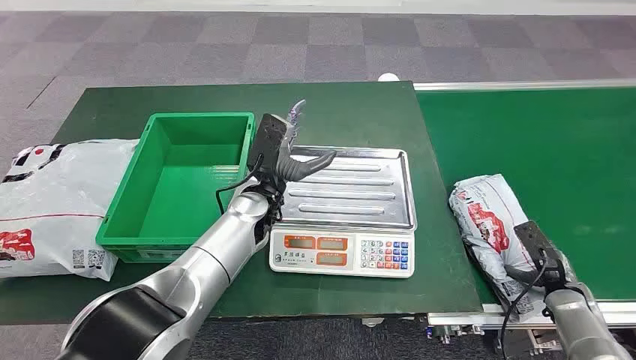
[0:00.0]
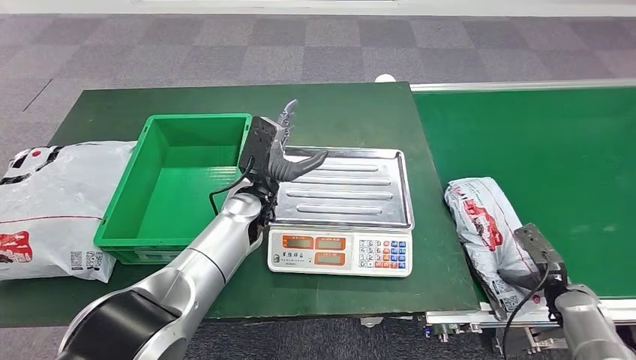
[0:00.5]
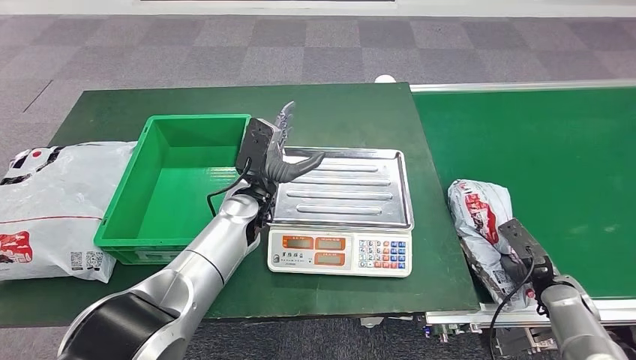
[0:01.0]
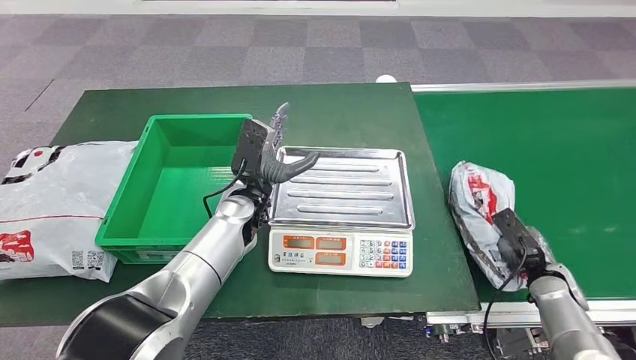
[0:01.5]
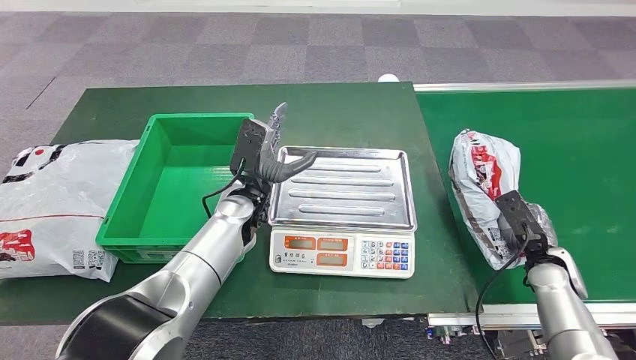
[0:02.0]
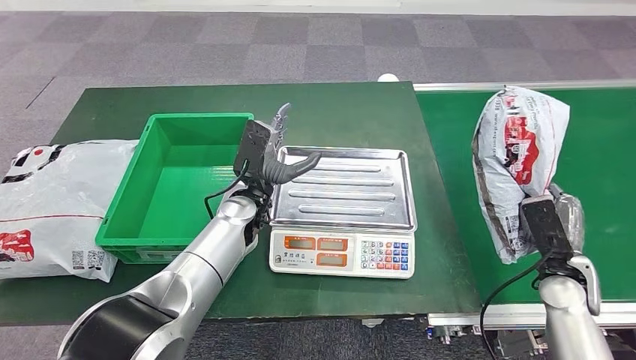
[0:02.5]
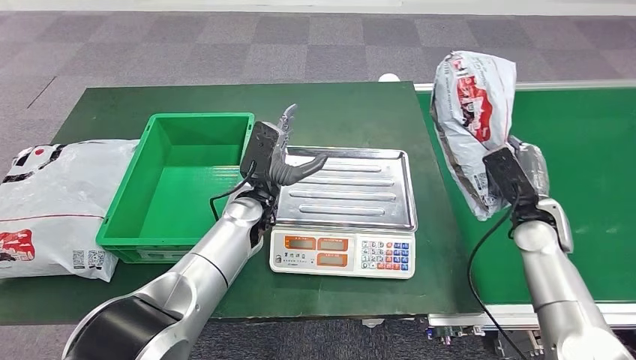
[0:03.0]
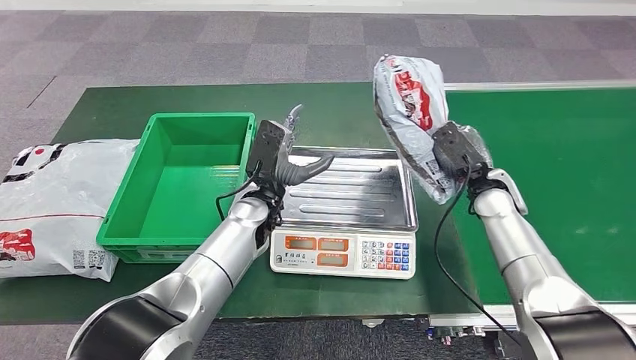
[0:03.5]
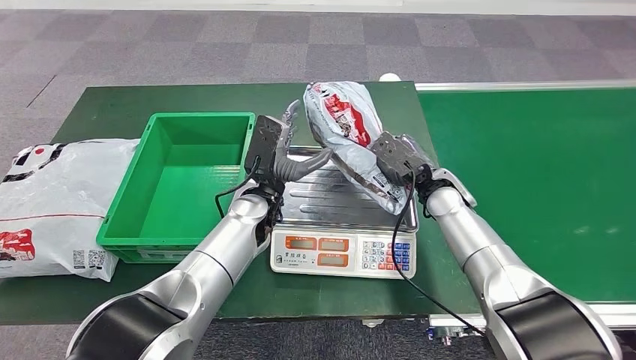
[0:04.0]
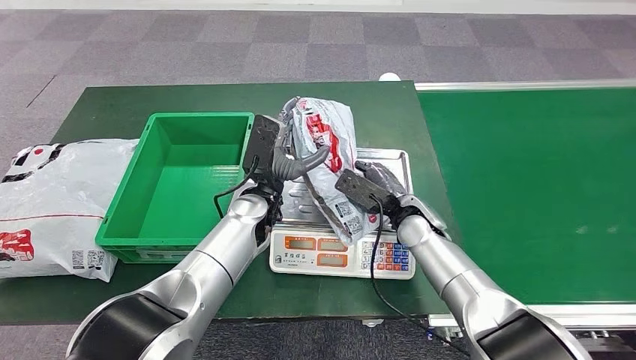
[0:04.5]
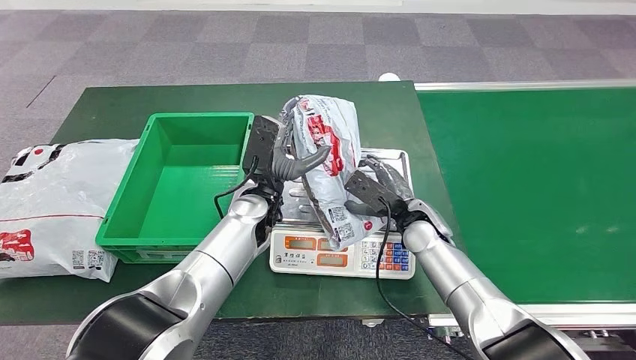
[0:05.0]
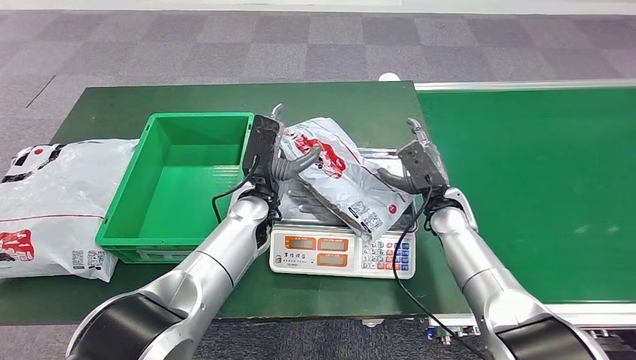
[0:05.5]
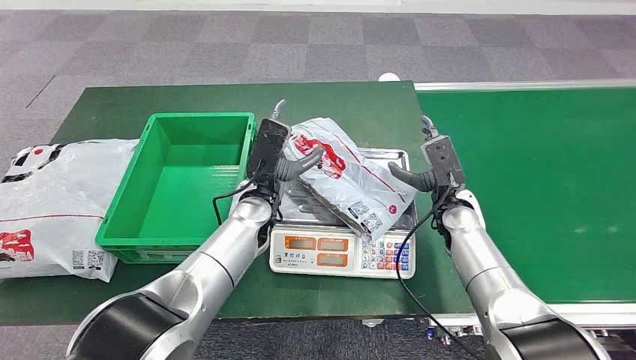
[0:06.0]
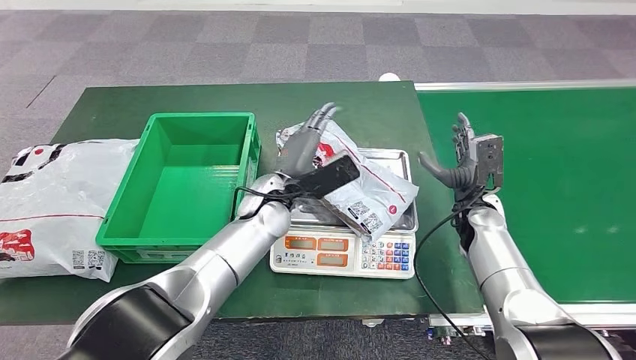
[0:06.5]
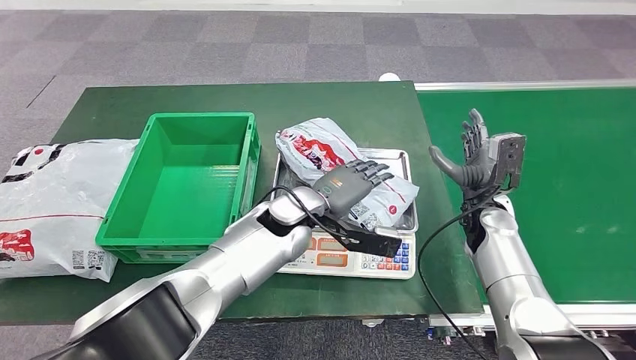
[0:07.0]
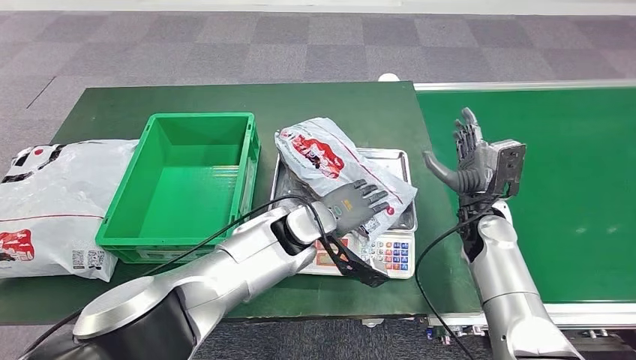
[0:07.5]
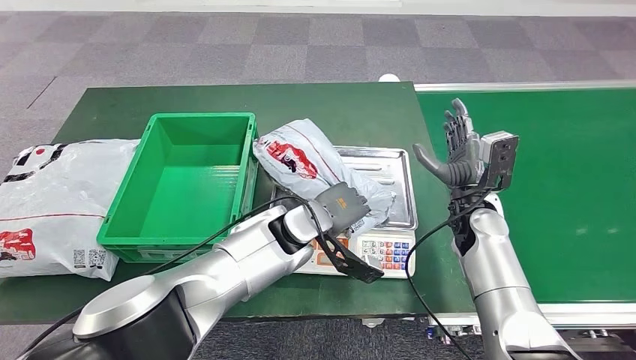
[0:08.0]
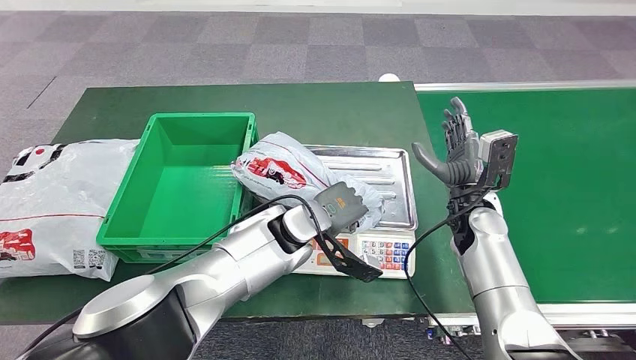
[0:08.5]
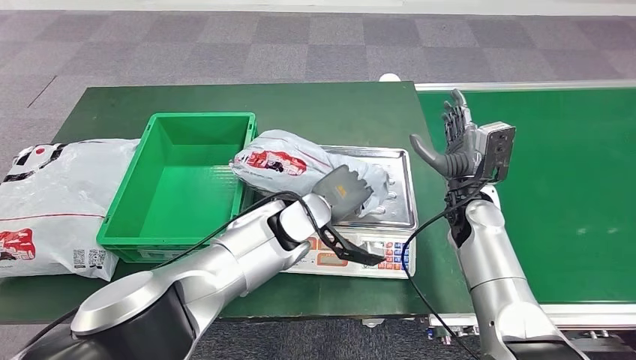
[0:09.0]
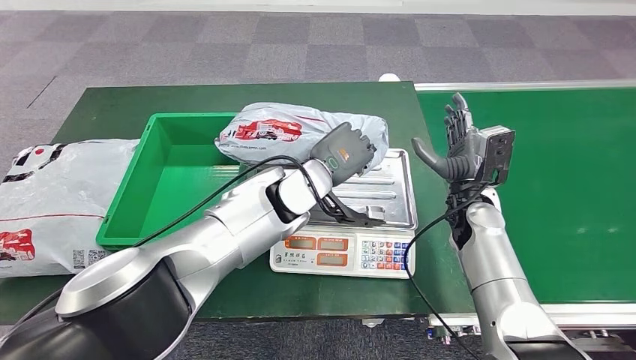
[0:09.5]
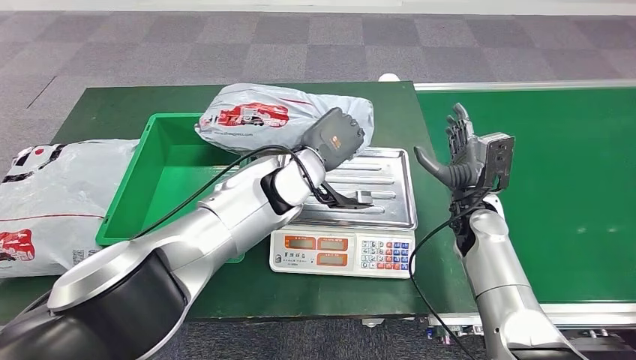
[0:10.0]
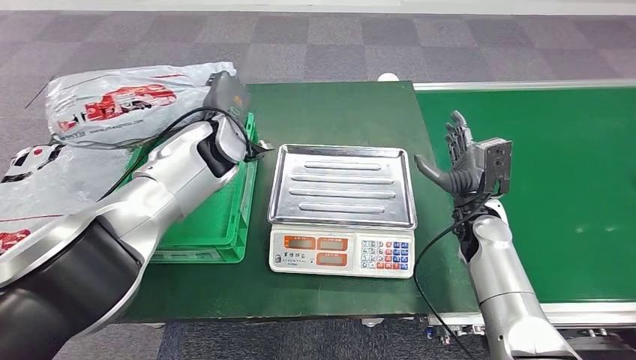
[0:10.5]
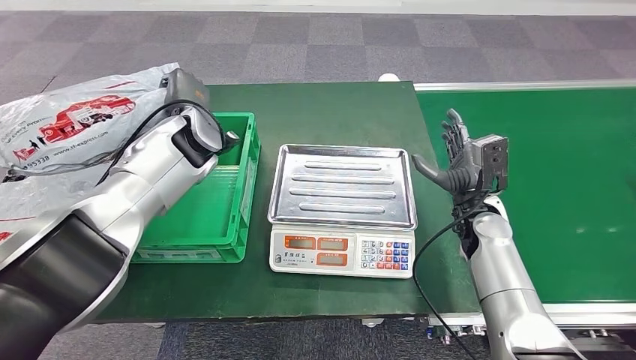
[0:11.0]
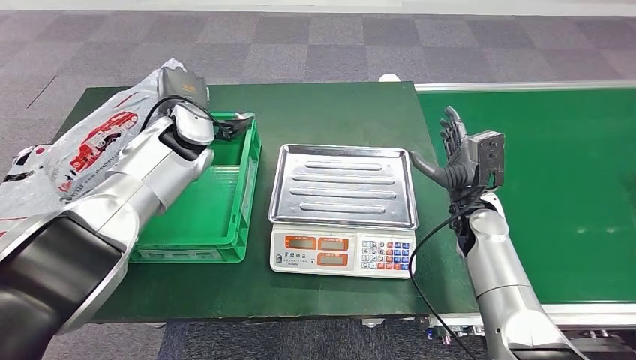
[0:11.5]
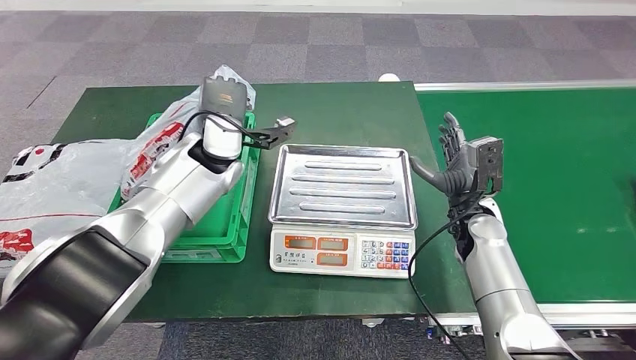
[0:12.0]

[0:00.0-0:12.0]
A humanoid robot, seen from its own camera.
Step, 0:00.0 to 0:02.5: Take the parcel off the conveyor belt.
Step, 0:03.0 to 0:05.5: Place the parcel onto the inbound machine.
Step, 0:08.0 to 0:09.5: Pick up the parcel from the inbound machine.
0:04.0 to 0:06.0: The right hand moves roughly 5 cm to the left and comes back.

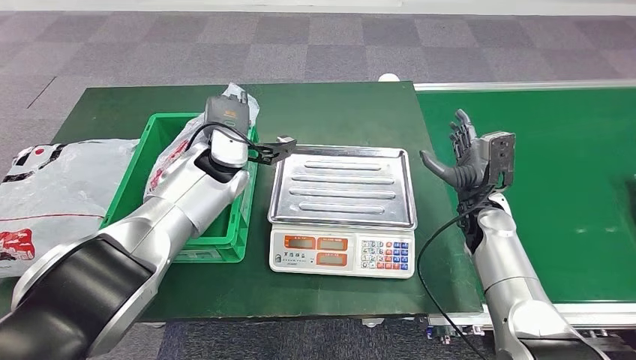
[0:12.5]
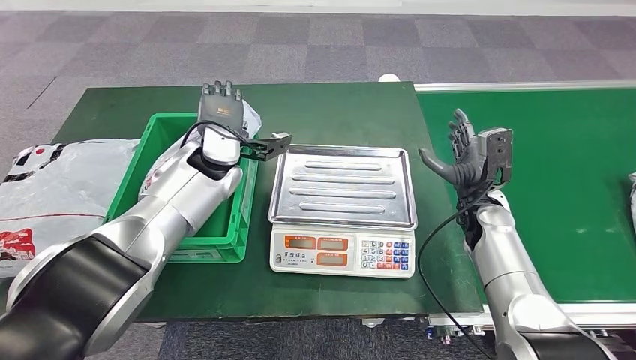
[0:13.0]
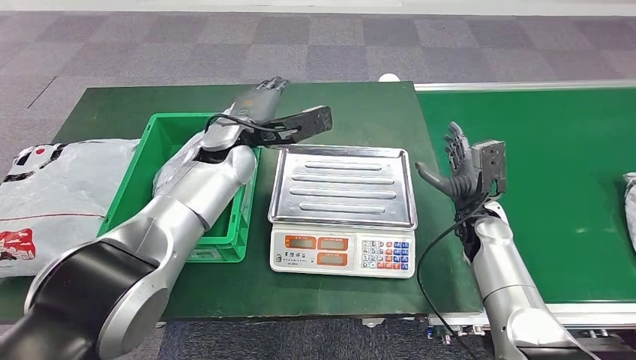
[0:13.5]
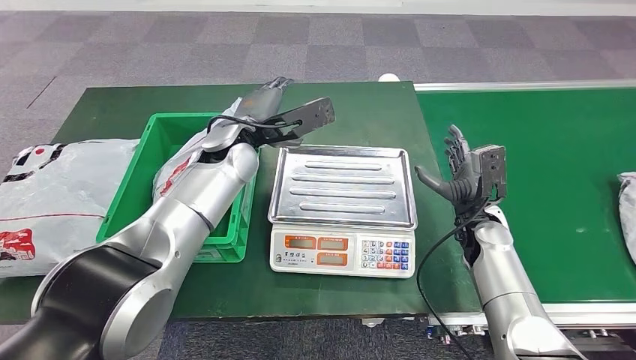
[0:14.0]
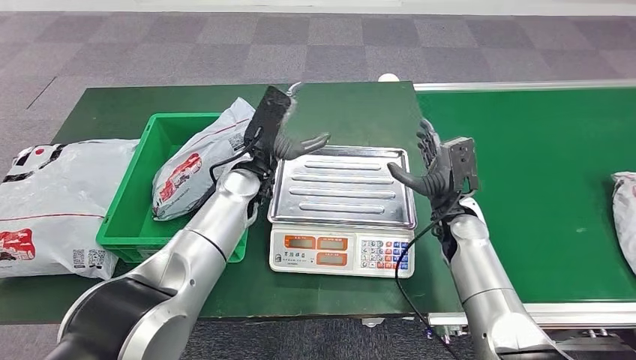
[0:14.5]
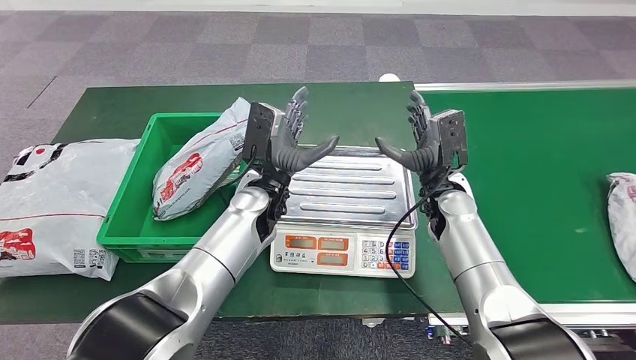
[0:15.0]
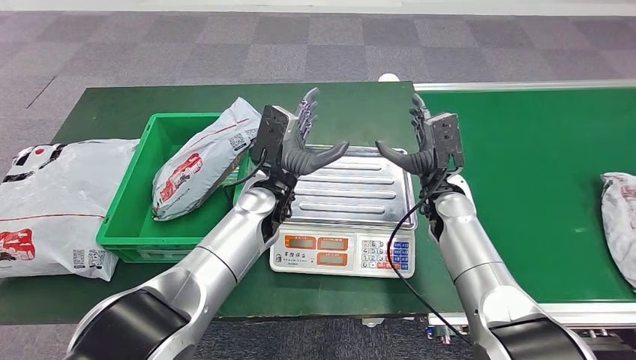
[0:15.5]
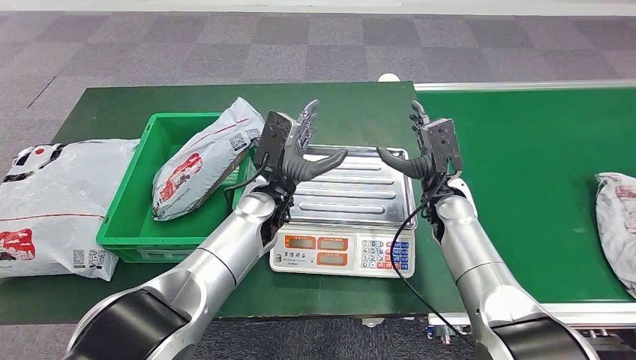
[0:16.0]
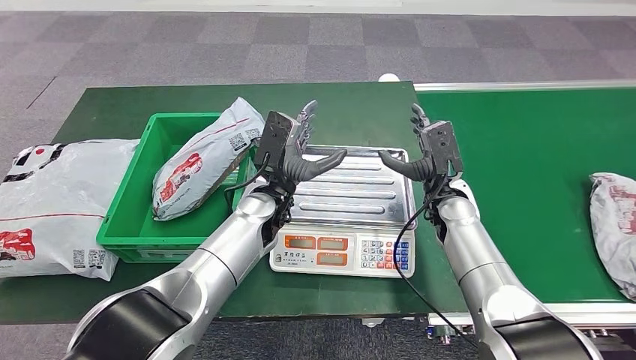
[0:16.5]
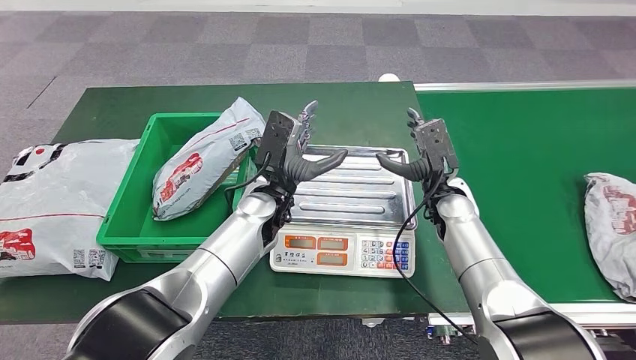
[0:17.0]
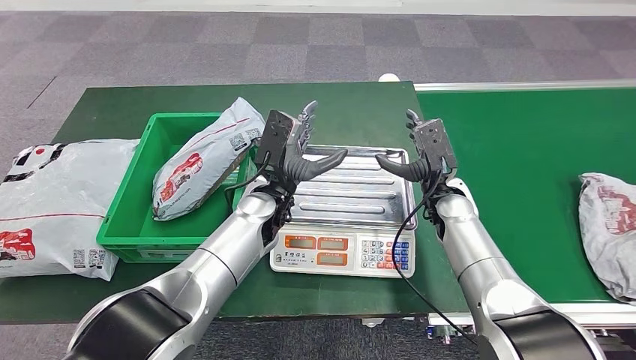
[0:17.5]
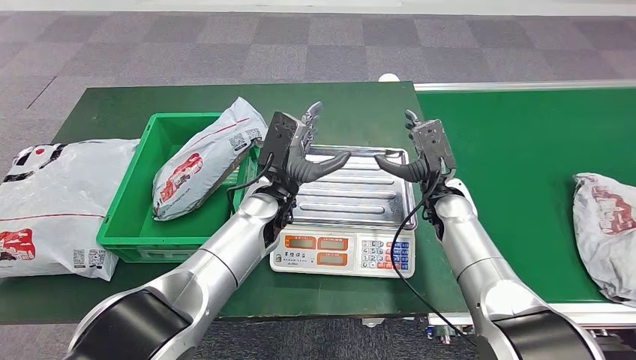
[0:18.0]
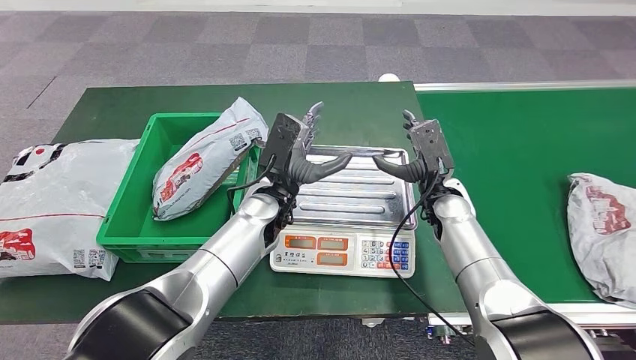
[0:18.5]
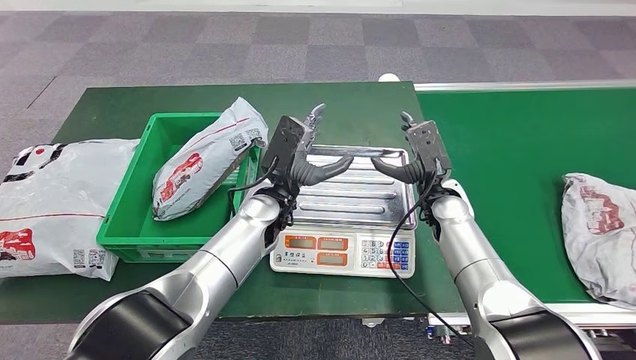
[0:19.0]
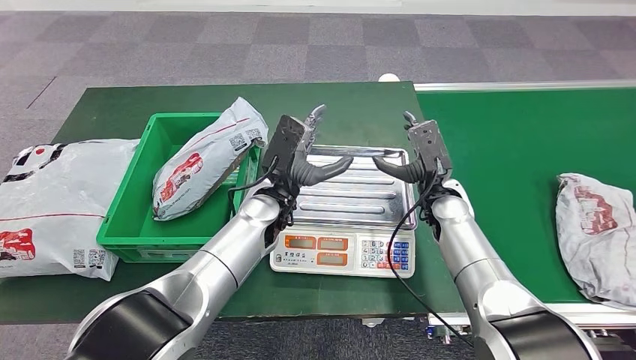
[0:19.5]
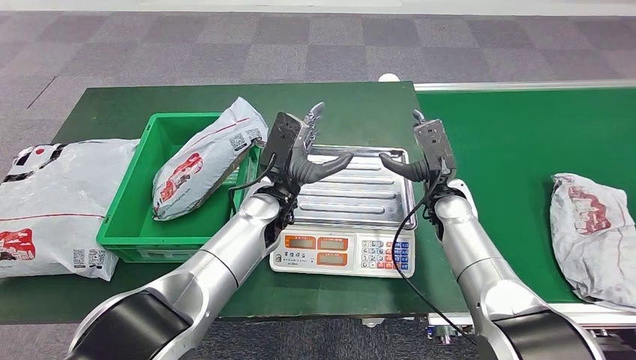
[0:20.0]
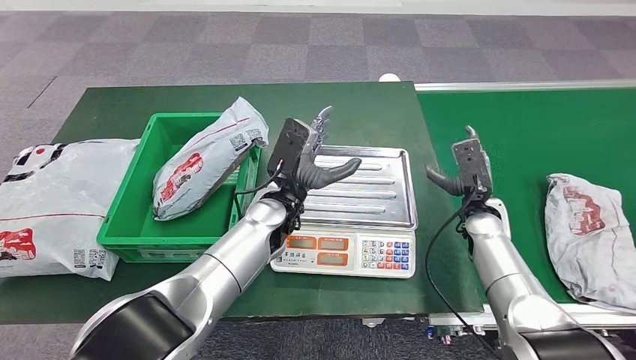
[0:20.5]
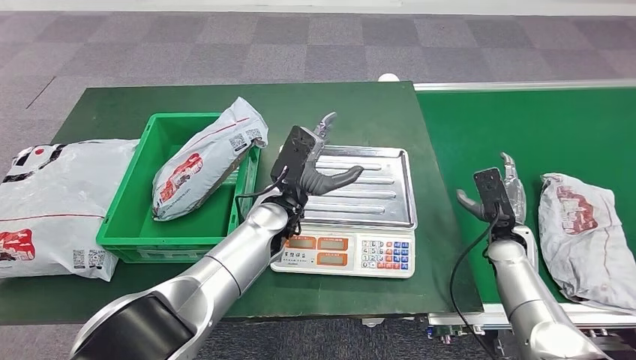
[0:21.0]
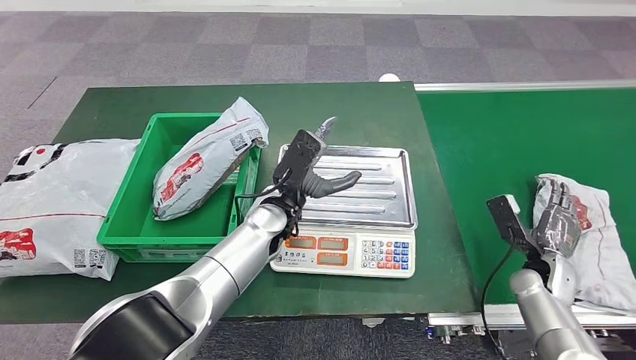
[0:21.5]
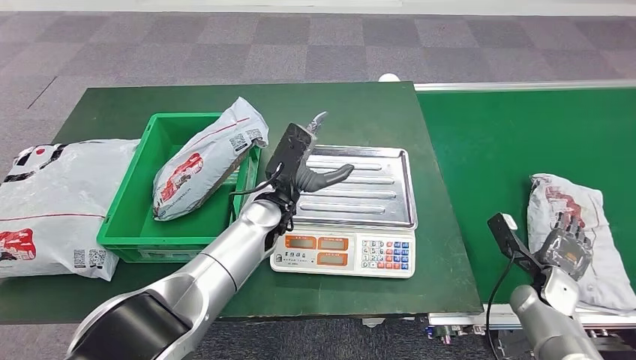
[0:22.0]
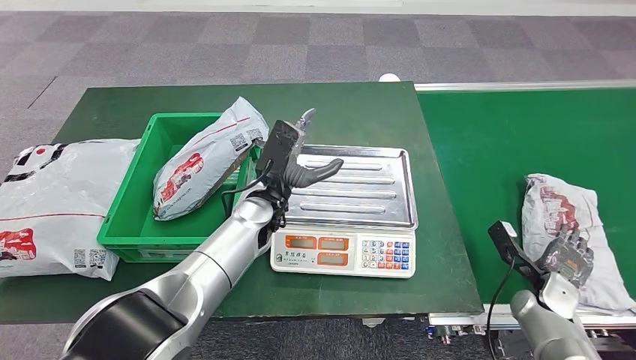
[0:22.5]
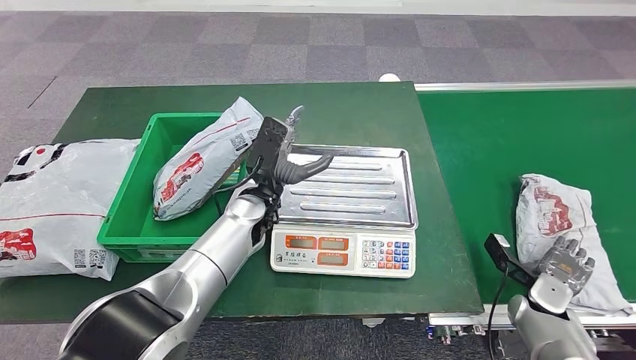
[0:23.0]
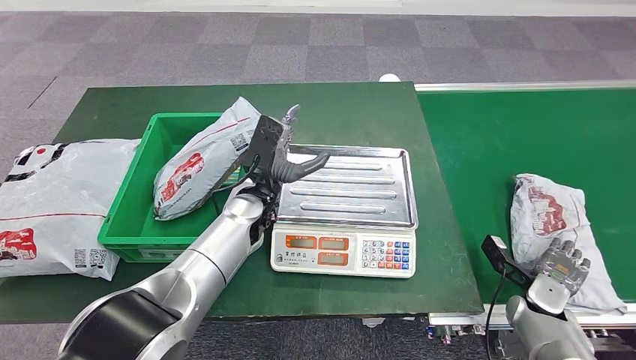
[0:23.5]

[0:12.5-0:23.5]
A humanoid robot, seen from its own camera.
0:14.5 to 0:16.0: The left hand ends up approximately 5 cm from where it was.
0:16.0 to 0:20.0: The hands make only small movements.
0:20.0 to 0:21.5: The right hand heads to the right, backward and downward, covering some 25 cm.
0:21.5 to 0:23.5: The right hand ends up approximately 5 cm from where it was.
